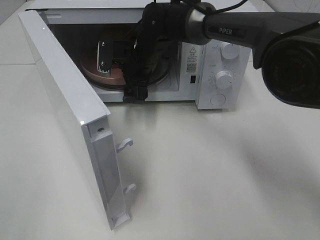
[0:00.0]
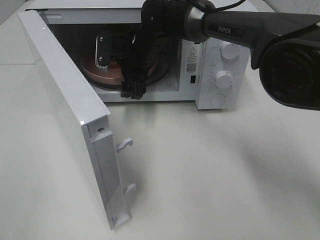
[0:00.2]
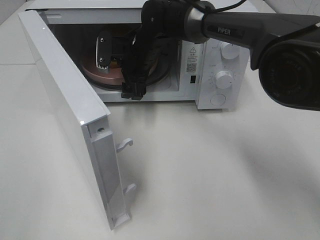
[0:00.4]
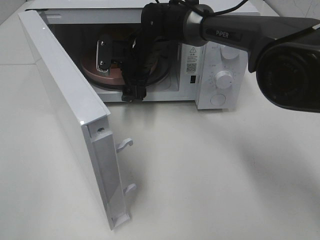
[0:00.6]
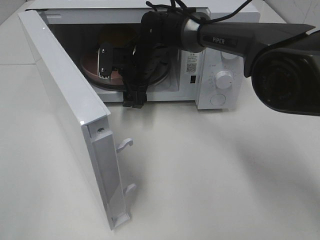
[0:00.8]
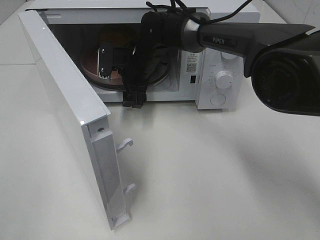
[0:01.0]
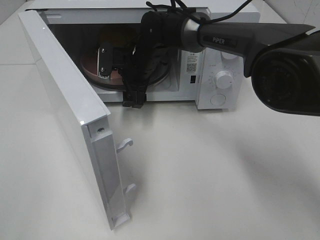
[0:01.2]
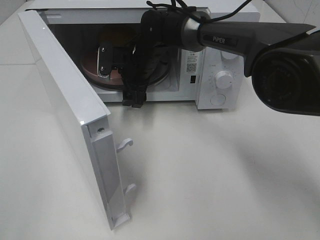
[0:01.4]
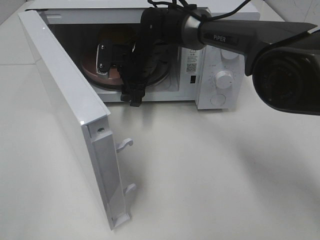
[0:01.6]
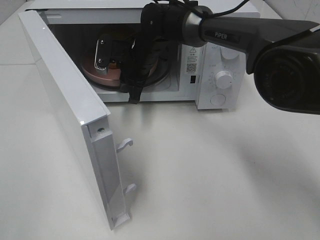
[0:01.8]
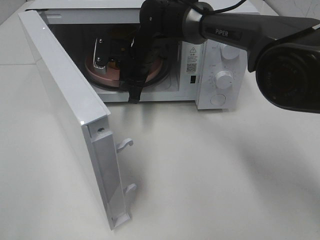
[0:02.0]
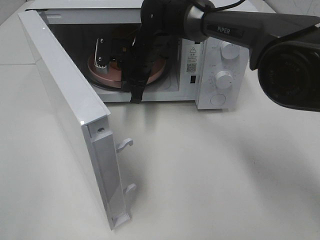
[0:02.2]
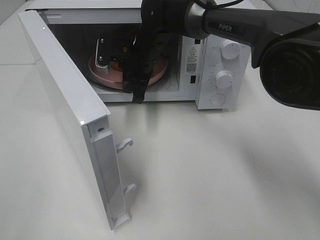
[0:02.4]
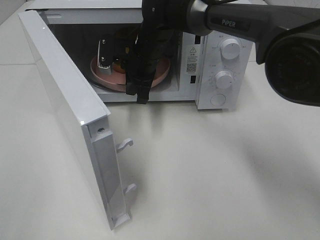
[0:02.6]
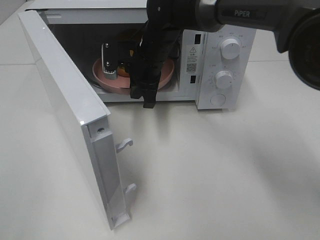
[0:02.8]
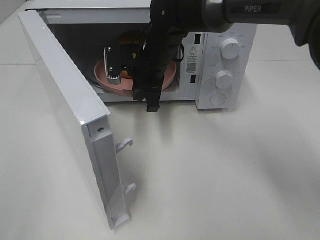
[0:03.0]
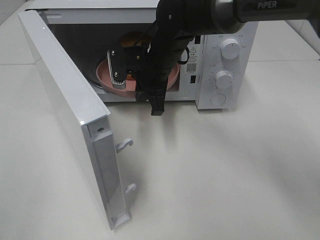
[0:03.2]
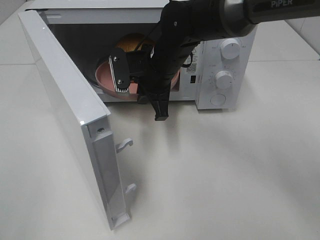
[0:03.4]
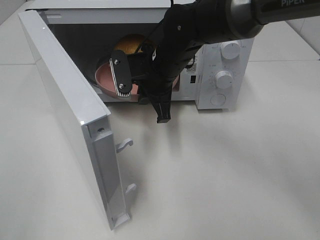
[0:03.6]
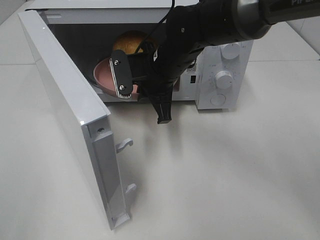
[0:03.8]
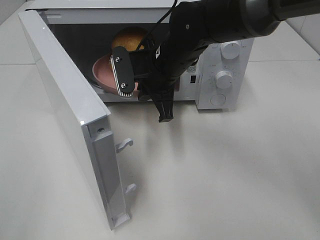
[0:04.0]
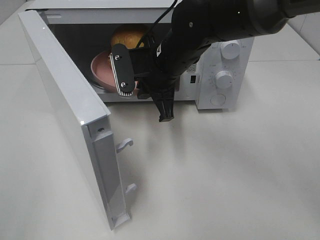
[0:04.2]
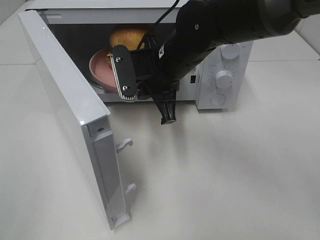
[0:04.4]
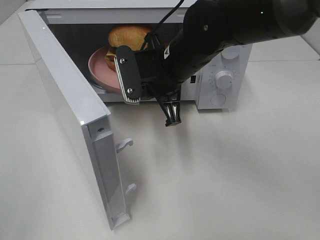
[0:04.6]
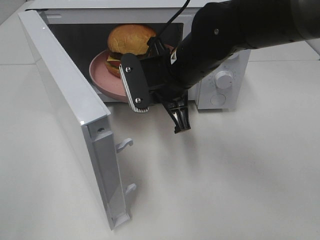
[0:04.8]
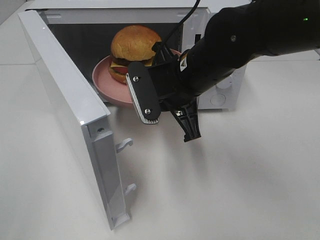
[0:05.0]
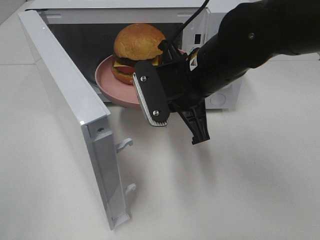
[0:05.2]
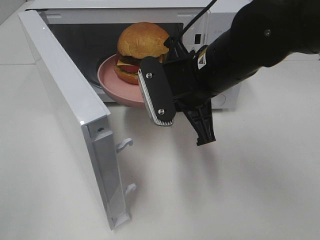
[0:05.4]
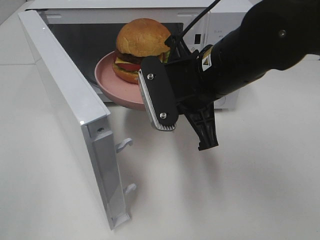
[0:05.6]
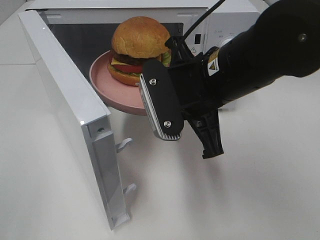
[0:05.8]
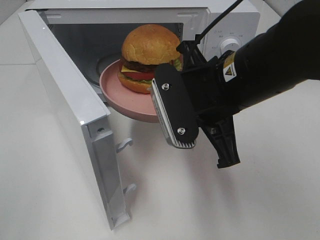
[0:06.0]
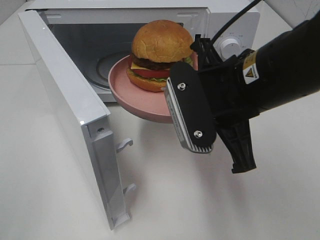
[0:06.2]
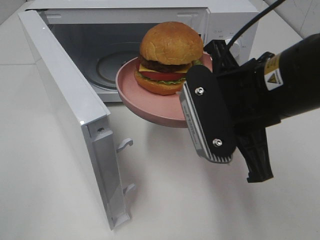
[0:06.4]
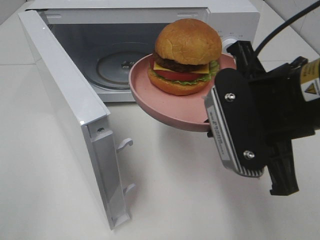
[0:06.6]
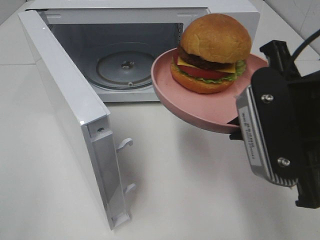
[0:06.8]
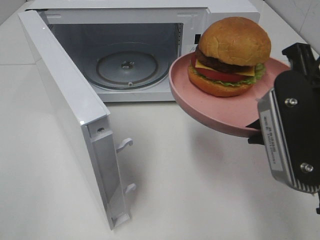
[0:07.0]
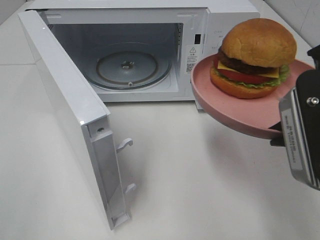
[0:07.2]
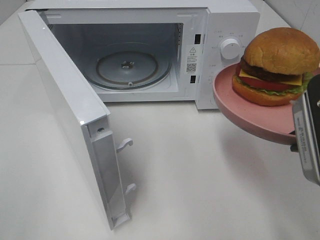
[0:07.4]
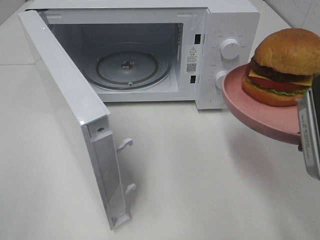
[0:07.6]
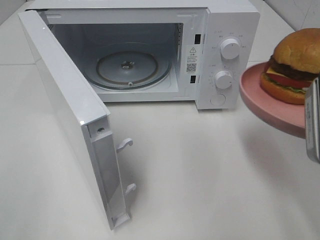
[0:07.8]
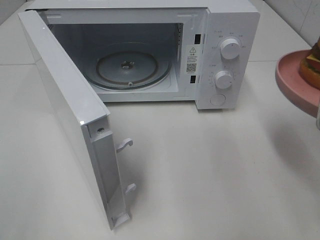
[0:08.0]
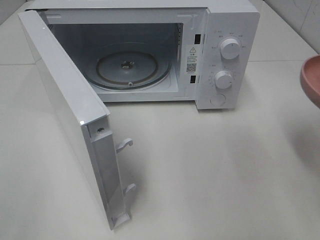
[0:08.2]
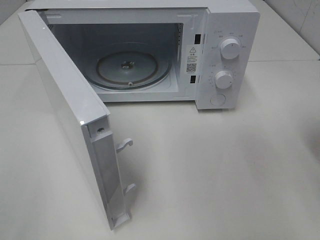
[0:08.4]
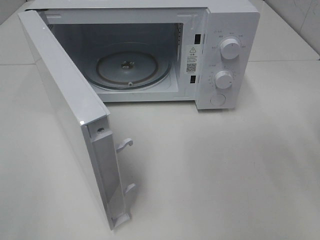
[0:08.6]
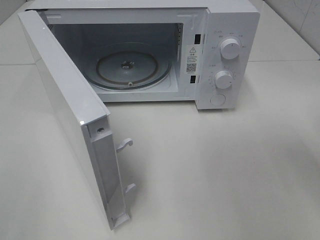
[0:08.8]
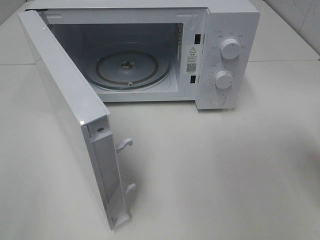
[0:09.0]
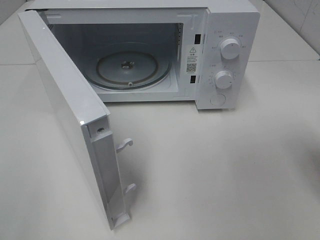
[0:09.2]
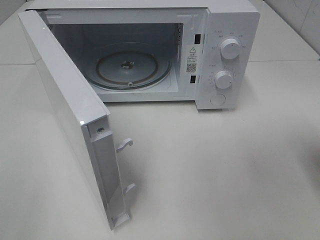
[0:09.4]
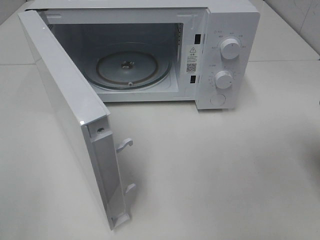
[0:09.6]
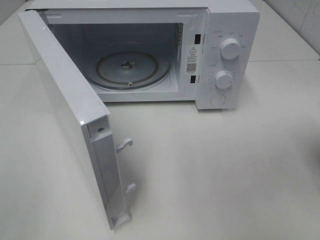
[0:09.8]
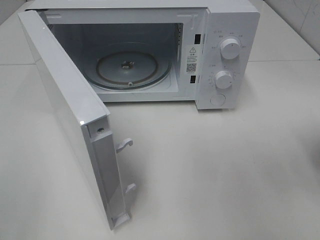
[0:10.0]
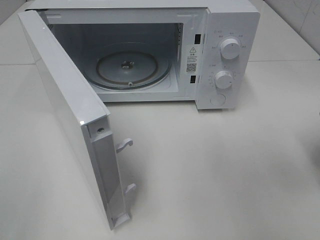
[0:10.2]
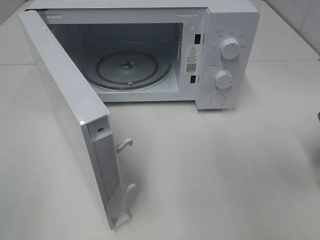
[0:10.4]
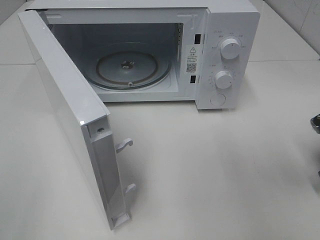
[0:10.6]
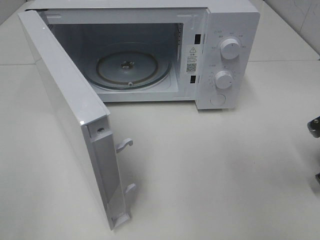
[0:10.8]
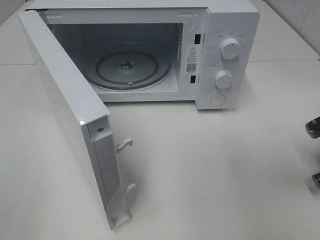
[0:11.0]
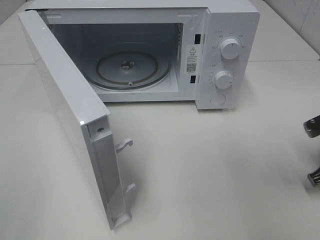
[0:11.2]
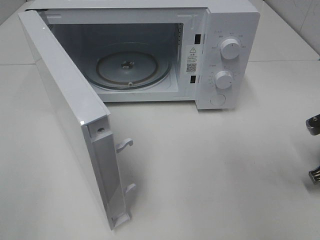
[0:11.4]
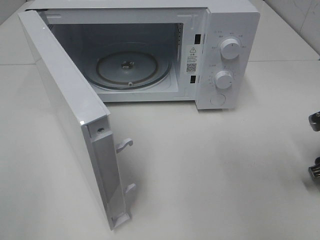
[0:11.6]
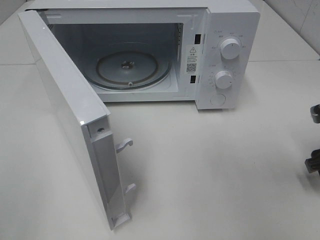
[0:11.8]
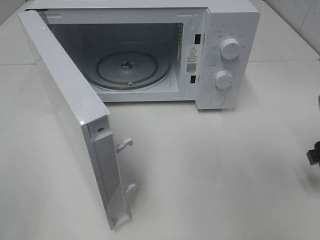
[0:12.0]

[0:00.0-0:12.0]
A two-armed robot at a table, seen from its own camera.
Task of the whole recording: Heat the burger.
Step, 0:00.0 to 0:02.0: Right hand: grab the plate with the hamburger.
Step, 0:02.2 to 0:11.0: Right hand: place the plate on the table.
0:00.0 to 0:01.6: The grippers make only small movements.
0:01.6 to 0:03.0: The right gripper shifts by approximately 5 cm, and closes up.
0:03.0 to 0:04.4: The right gripper goes some 5 cm backward.
0:04.4 to 0:06.0: The right gripper shifts approximately 15 cm backward and to the right.
0:06.0 to 0:07.6: The right gripper shifts approximately 15 cm to the right and backward.
0:07.6 to 0:09.0: The right gripper travels to the right by roughly 5 cm.

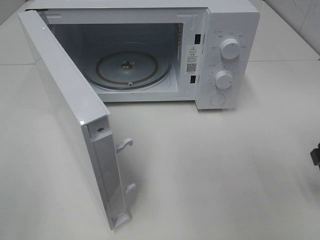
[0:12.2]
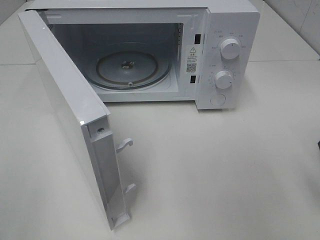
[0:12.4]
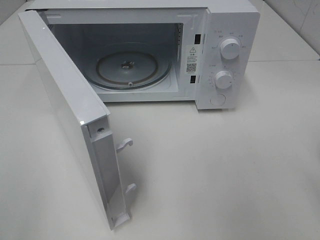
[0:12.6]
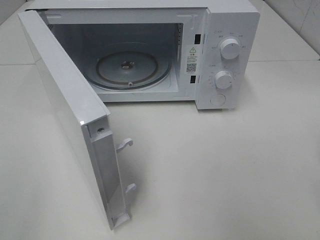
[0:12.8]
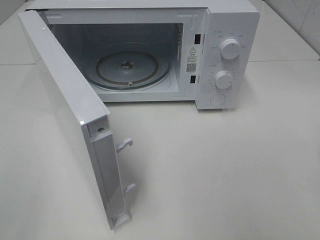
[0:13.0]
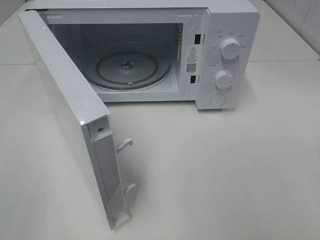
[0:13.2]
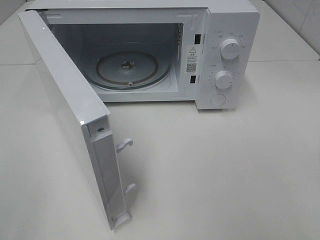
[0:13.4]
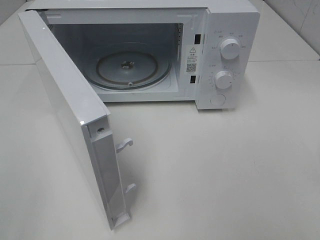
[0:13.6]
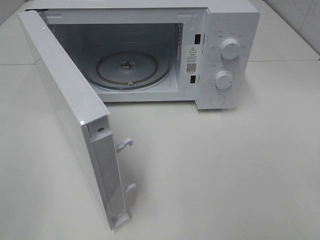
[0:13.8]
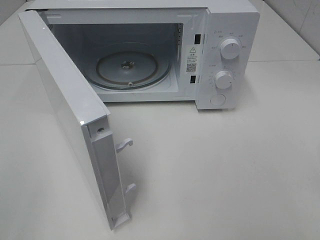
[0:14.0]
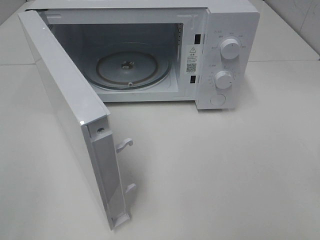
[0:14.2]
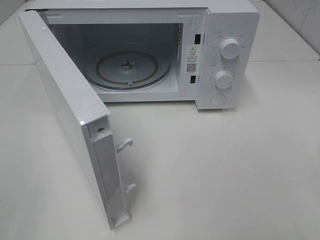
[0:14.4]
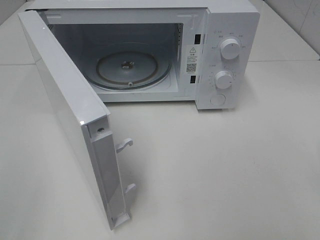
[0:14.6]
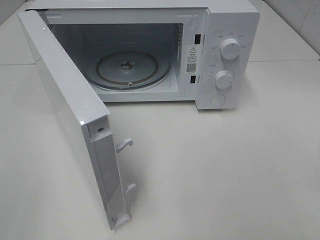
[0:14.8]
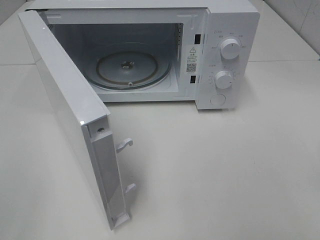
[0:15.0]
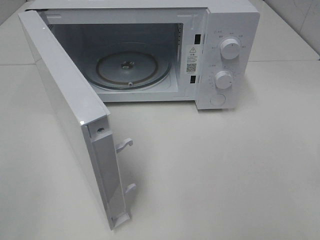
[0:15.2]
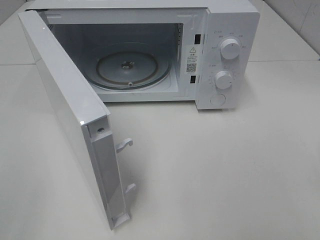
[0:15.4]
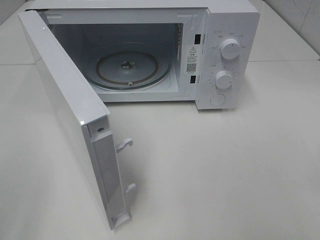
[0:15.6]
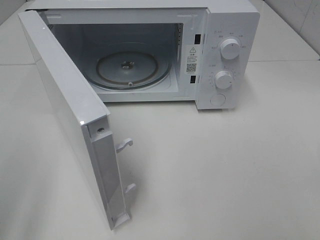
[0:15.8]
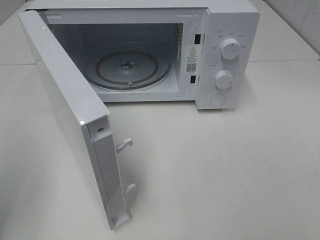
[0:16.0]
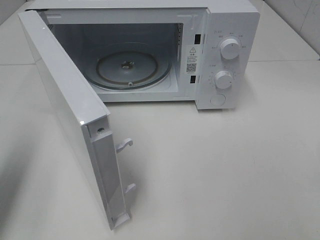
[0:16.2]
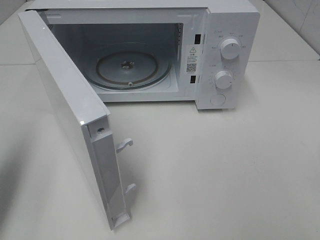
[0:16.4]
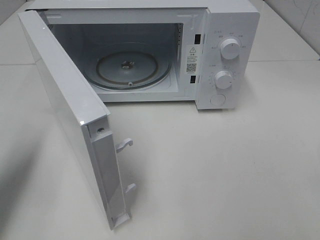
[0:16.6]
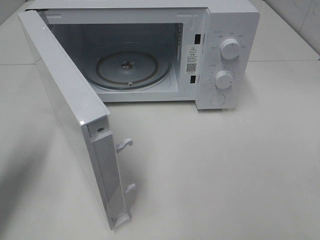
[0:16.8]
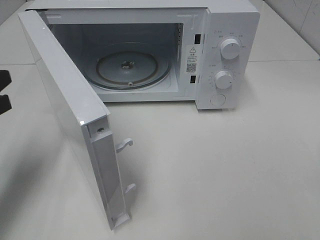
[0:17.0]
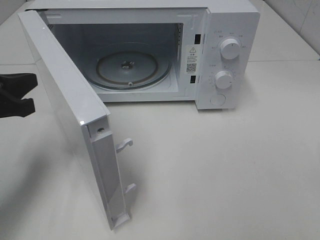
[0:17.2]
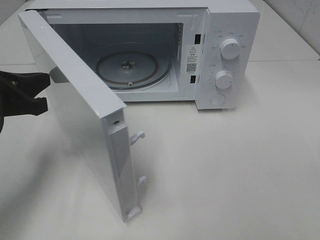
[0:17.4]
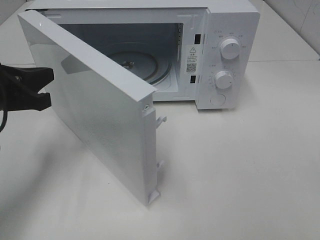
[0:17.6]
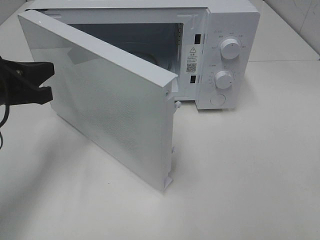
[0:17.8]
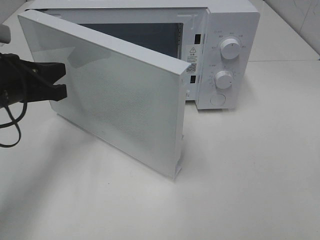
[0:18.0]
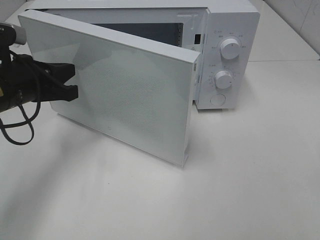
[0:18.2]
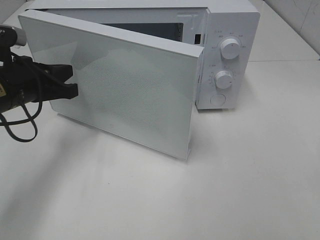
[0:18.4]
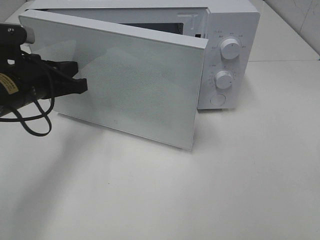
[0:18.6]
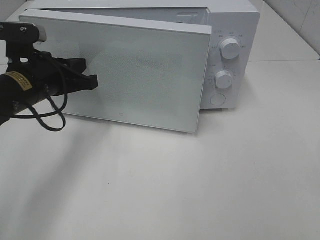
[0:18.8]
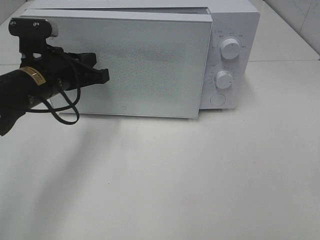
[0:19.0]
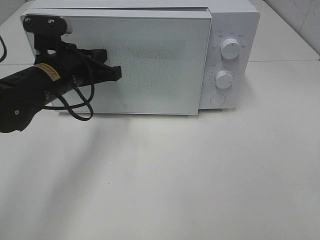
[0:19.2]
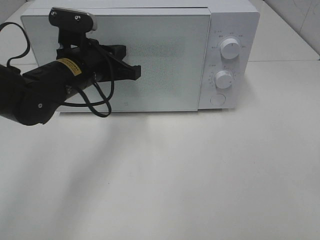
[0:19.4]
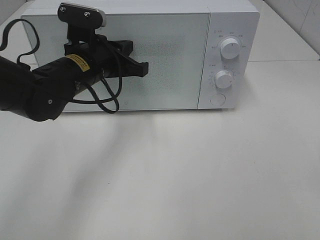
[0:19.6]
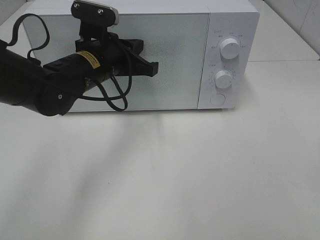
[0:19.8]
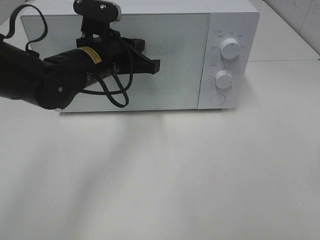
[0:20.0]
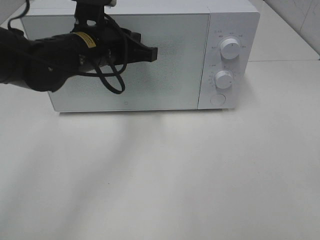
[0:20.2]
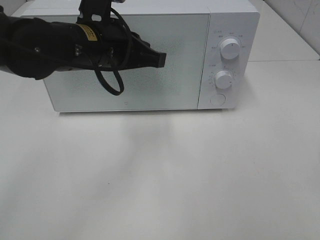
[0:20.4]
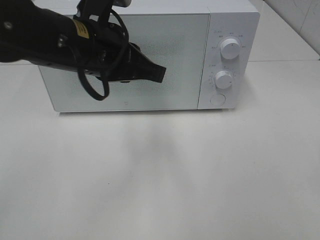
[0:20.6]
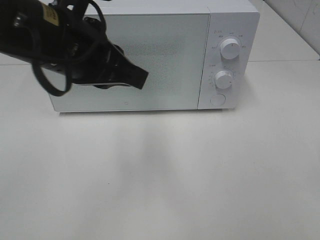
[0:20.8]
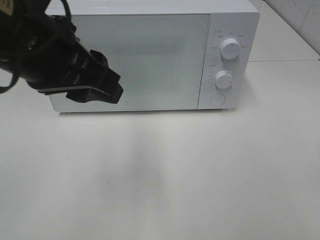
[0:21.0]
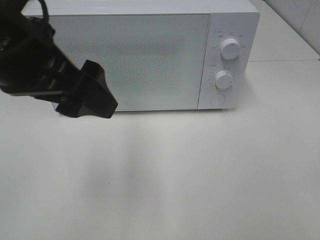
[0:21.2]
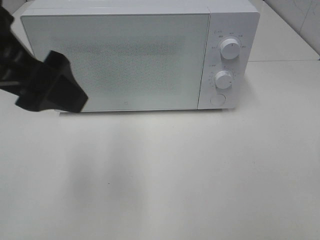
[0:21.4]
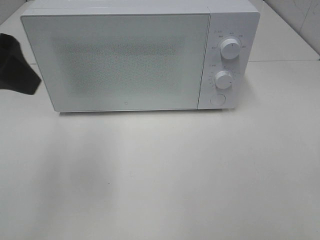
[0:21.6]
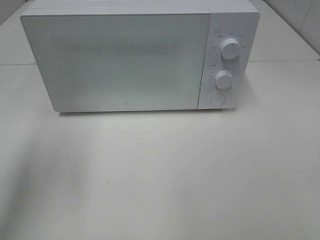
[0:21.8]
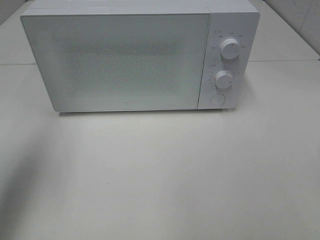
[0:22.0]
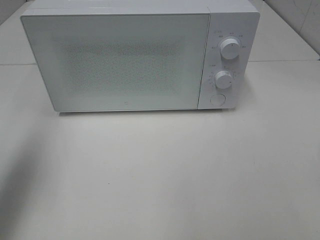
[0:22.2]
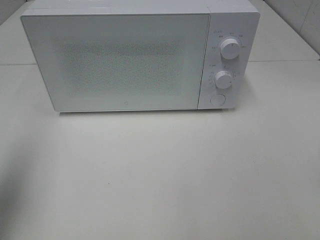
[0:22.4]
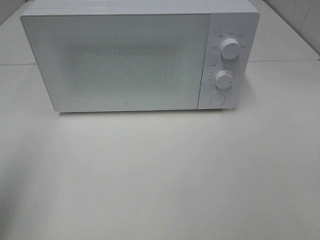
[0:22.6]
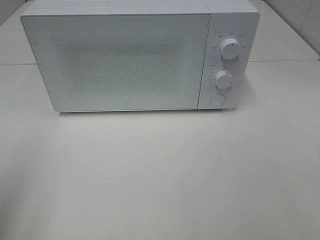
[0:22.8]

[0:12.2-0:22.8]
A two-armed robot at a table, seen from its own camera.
Task of the whole recording: Heat the burger.
Step, 0:12.2 to 0:19.6: Left hand: close the microwave door.
0:12.2 to 0:13.8: The right gripper shifts roughly 25 cm backward and upward.
0:13.8 to 0:15.2: Both grippers stay put.
0:15.2 to 0:16.8: The left gripper moves forward, some 20 cm, and closes up.
0:16.8 to 0:18.2: The left gripper travels to the right and forward by roughly 10 cm.
0:18.2 to 0:19.8: The left gripper goes roughly 15 cm to the right and forward.
0:19.8 to 0:21.2: The left gripper travels backward and upward by some 20 cm, and opens up.
0:21.2 to 0:22.8: The left gripper moves to the left and backward, approximately 20 cm.
